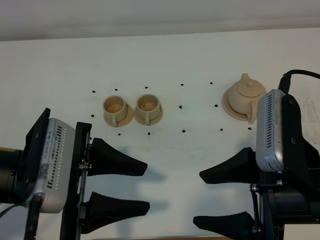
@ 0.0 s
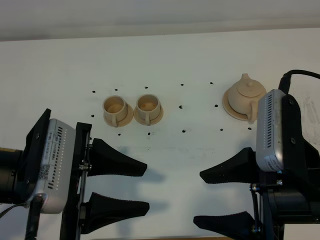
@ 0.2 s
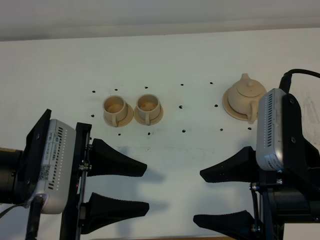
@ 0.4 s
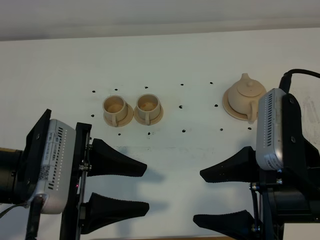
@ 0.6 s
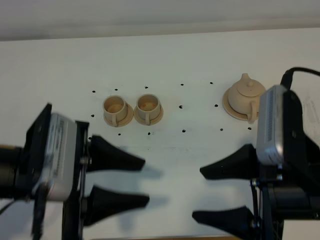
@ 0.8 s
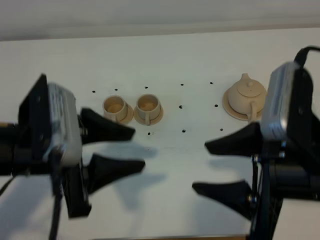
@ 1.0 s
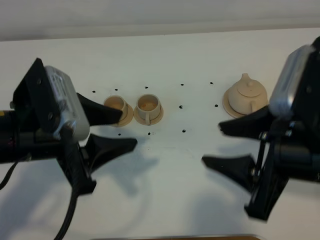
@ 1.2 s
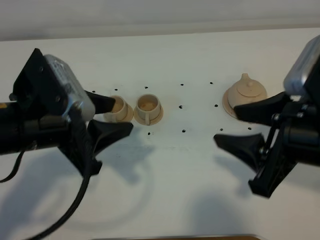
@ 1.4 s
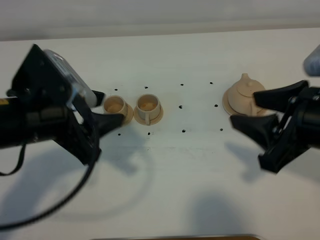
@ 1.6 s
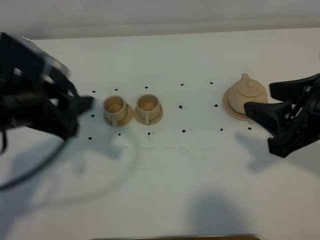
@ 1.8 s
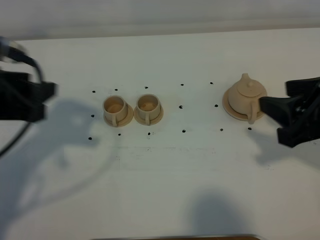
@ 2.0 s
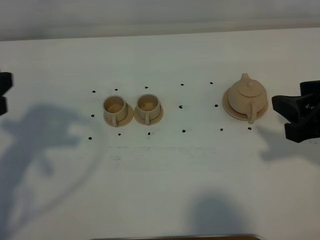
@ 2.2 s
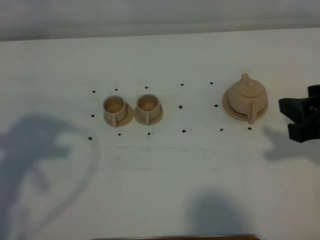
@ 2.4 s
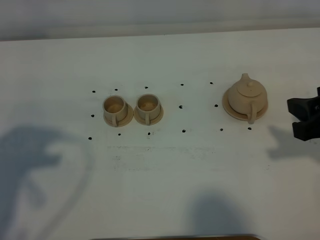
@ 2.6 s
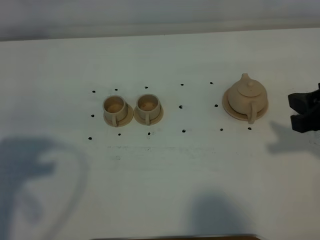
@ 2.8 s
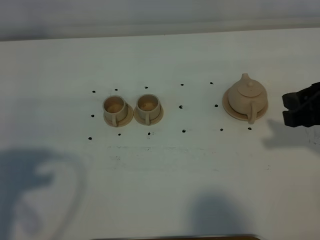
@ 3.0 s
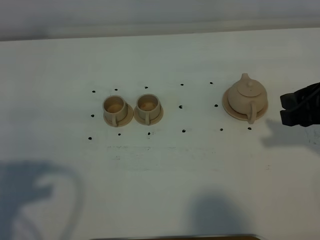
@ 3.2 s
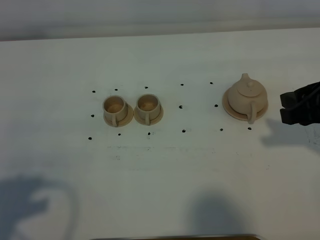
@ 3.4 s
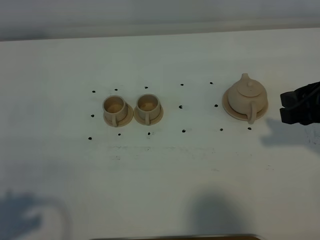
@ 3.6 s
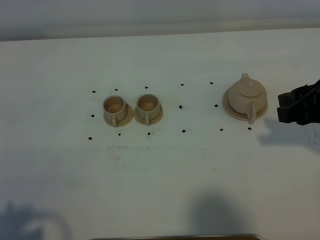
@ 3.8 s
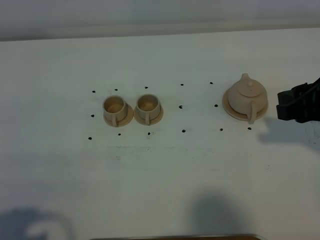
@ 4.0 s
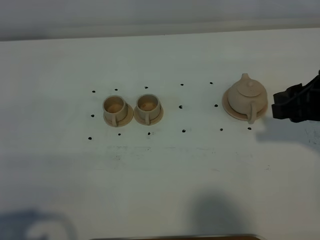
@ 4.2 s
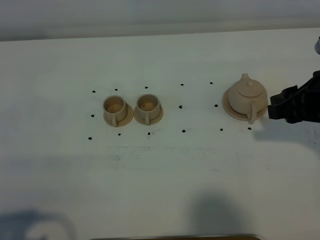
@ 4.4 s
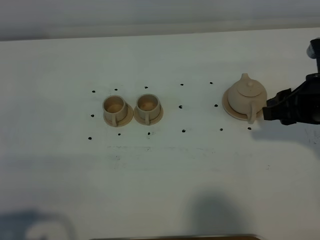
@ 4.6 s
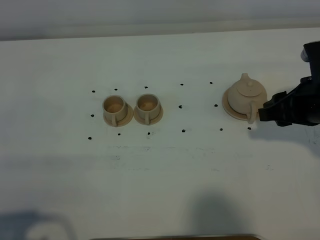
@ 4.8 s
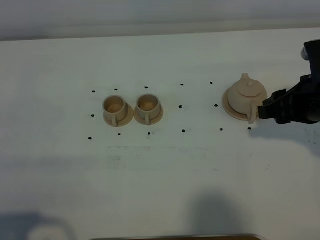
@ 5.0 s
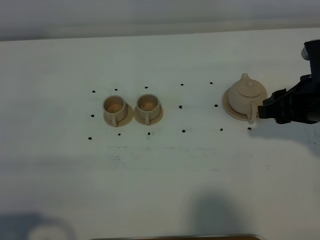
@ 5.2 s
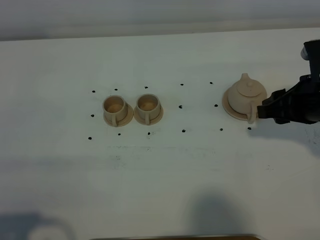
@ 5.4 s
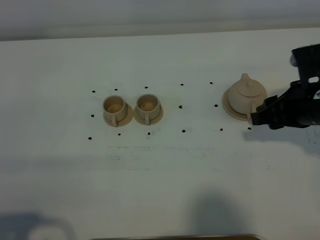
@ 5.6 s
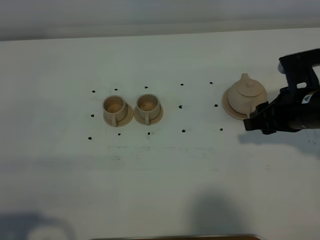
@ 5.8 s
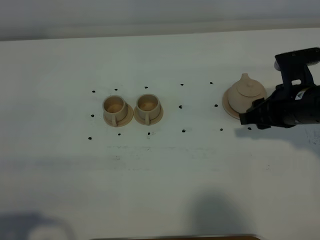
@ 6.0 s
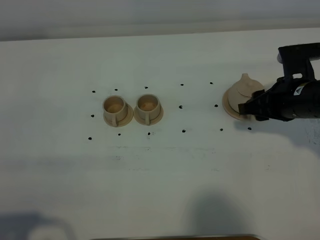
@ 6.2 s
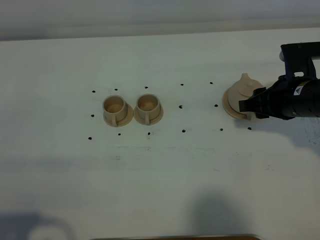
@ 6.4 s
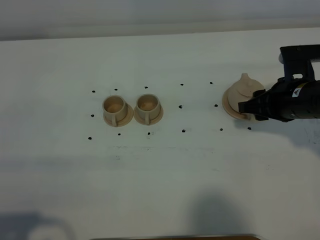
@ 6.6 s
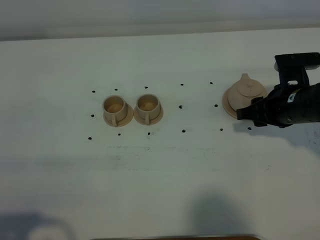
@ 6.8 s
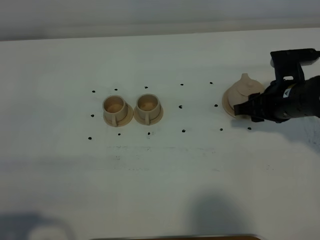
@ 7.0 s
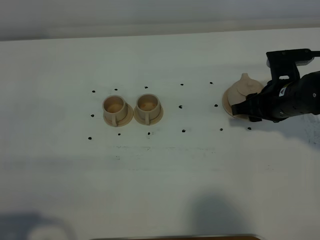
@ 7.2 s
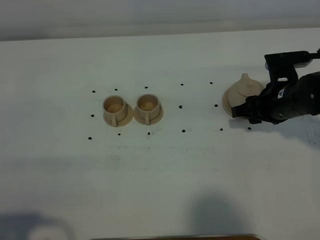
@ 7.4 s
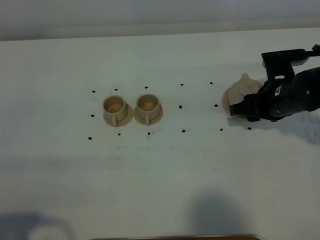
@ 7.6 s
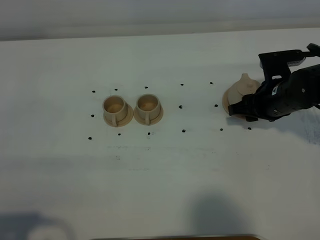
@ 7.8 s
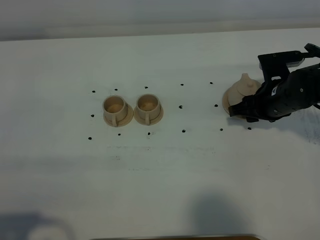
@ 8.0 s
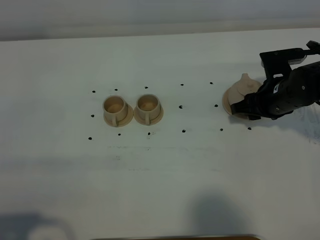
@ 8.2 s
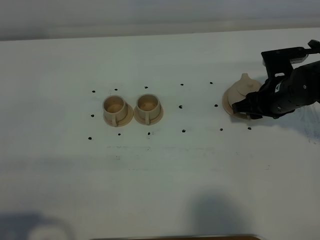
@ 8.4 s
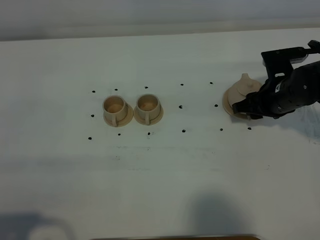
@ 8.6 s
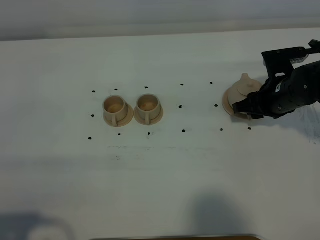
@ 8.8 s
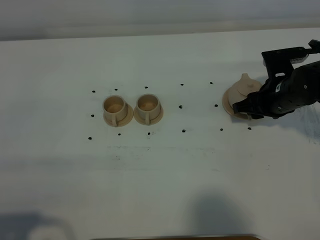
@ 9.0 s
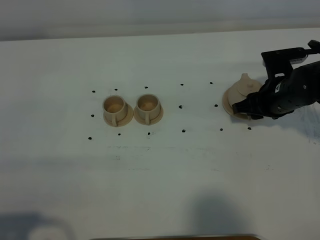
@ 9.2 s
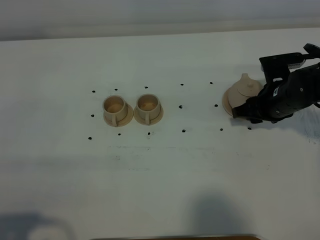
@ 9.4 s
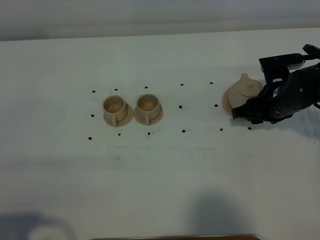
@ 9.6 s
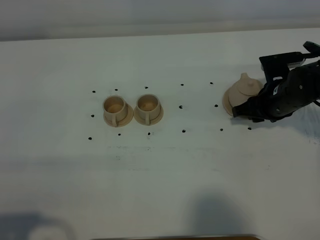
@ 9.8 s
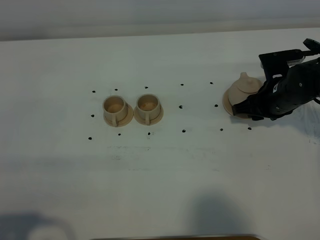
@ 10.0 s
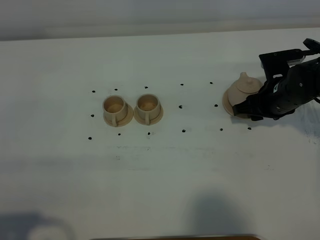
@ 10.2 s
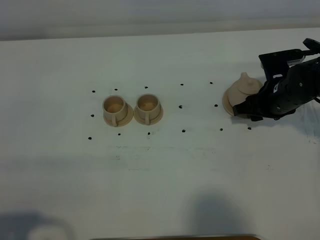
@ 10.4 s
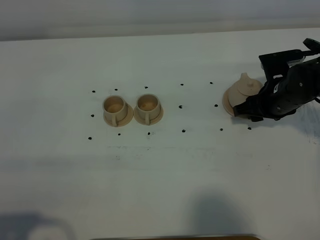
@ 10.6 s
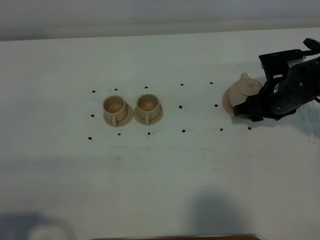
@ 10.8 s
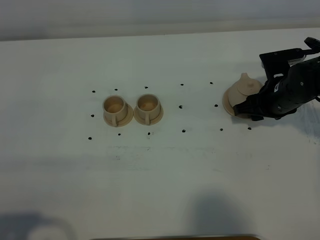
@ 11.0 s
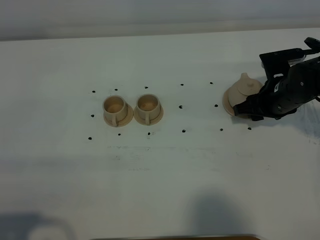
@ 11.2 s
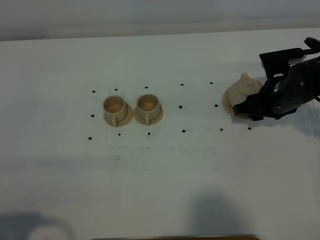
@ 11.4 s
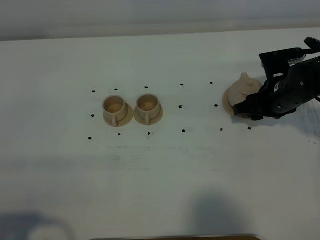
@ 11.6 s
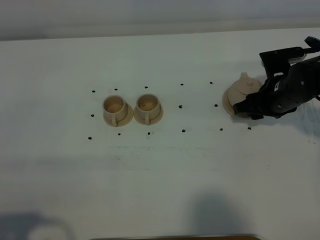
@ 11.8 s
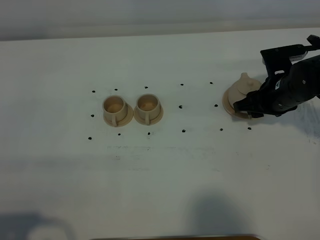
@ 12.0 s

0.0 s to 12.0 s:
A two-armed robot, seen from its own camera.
Task of the whole recording: grasp the brown teapot and pour the tea into the two brown teacups one by one, put the brown teapot back in its original place.
0.0 to 1.6 s: Both grippers move forward, roughly 5 cm.
1.6 to 3.0 s: The left gripper travels to the left and backward by approximately 15 cm, while the right gripper ends up some 5 cm from where it was.
3.0 to 4.4 s: The left gripper goes approximately 10 cm backward and downward.
4.4 to 6.0 s: The right gripper shifts some 5 cm downward.
6.0 to 7.6 s: The right gripper shifts by approximately 5 cm.
7.6 to 9.0 s: The grippers stay close to where they were, moving slightly.
9.0 to 12.0 s: Neither gripper changes place.

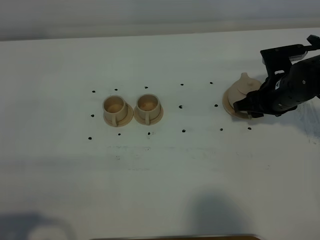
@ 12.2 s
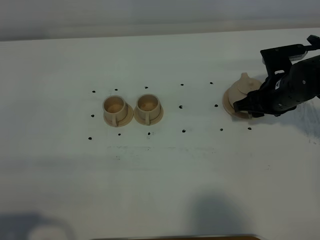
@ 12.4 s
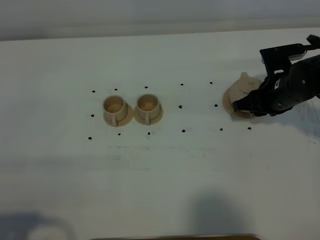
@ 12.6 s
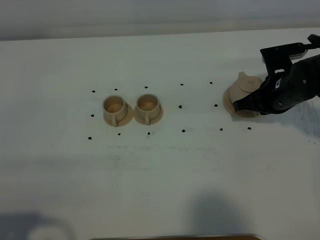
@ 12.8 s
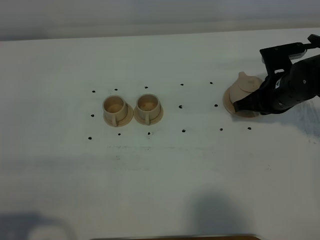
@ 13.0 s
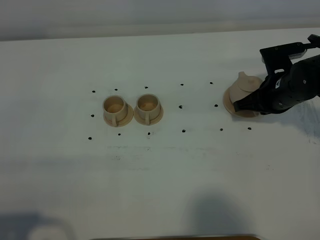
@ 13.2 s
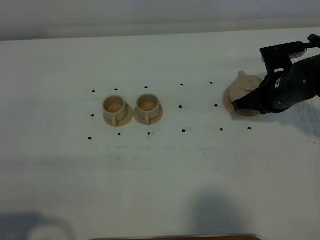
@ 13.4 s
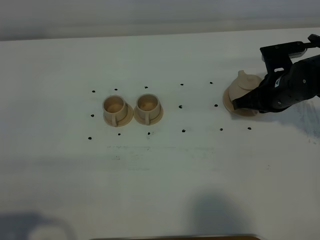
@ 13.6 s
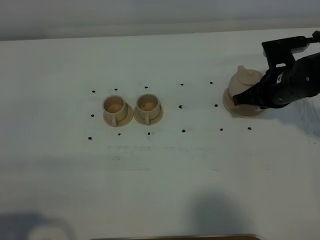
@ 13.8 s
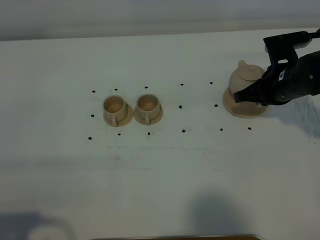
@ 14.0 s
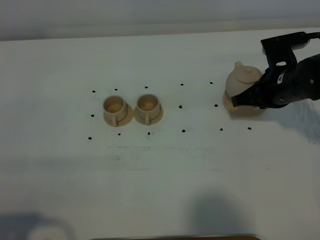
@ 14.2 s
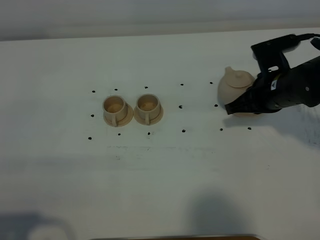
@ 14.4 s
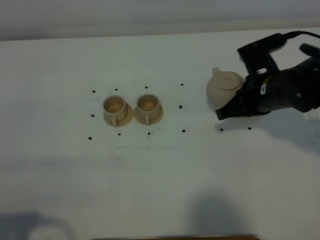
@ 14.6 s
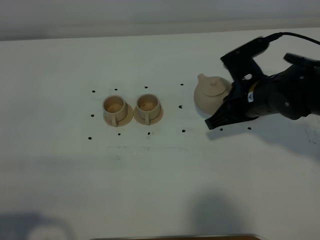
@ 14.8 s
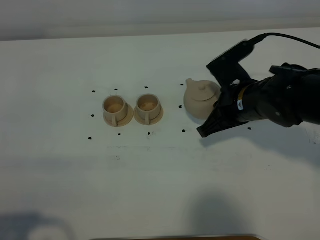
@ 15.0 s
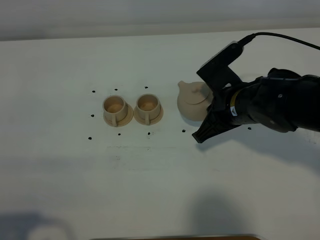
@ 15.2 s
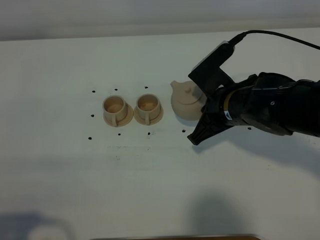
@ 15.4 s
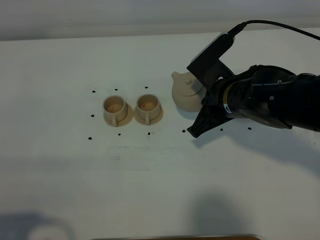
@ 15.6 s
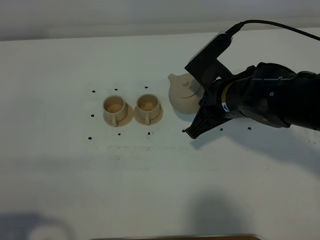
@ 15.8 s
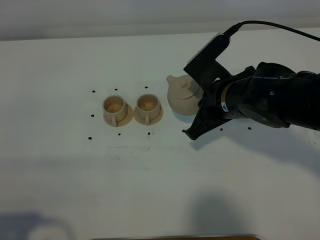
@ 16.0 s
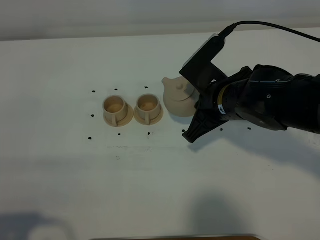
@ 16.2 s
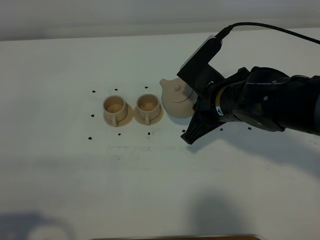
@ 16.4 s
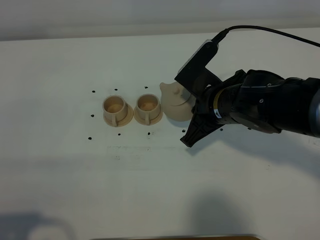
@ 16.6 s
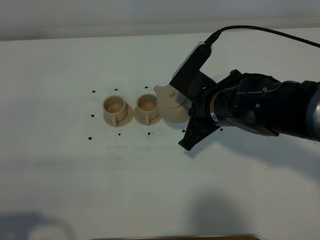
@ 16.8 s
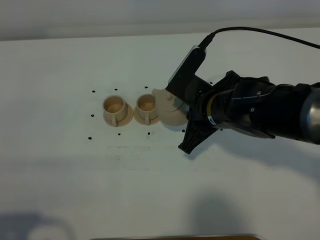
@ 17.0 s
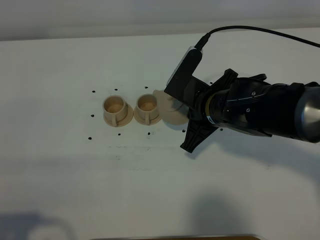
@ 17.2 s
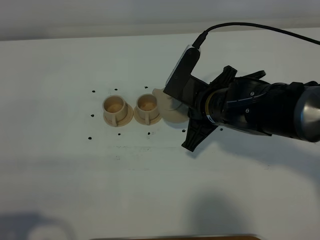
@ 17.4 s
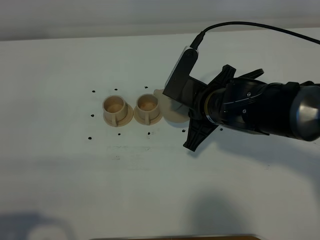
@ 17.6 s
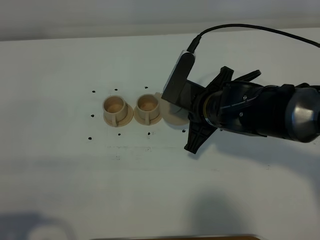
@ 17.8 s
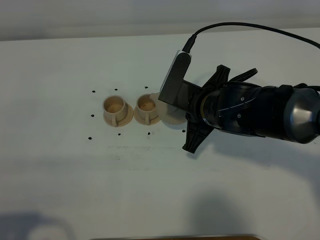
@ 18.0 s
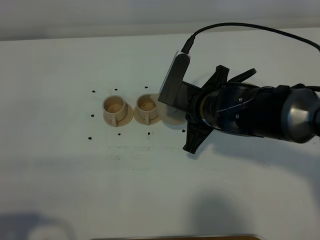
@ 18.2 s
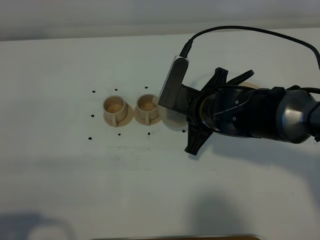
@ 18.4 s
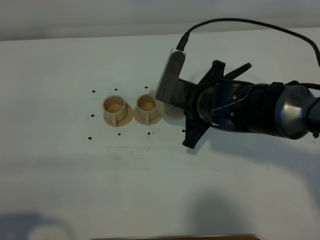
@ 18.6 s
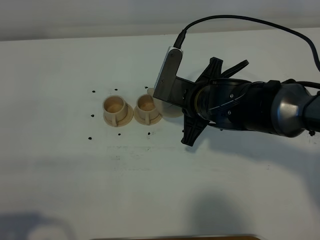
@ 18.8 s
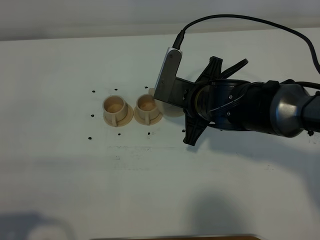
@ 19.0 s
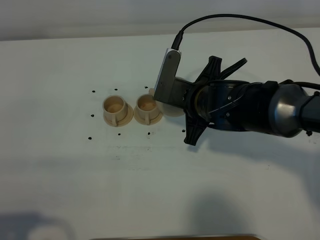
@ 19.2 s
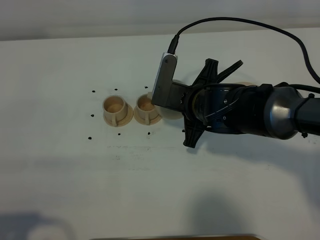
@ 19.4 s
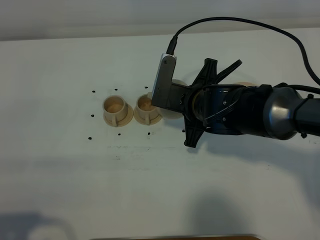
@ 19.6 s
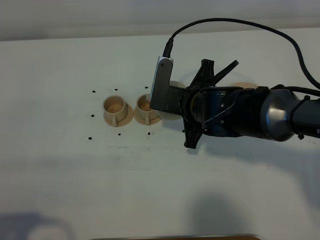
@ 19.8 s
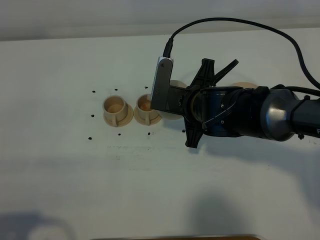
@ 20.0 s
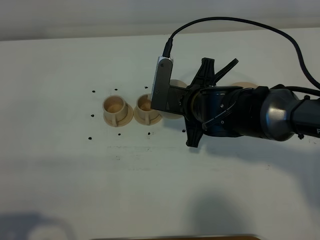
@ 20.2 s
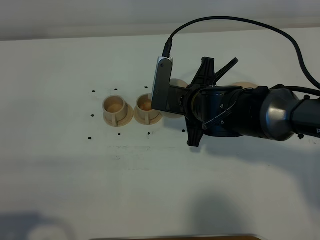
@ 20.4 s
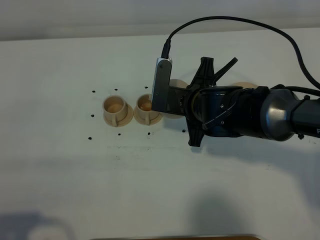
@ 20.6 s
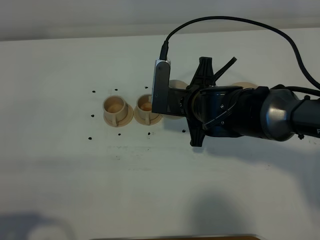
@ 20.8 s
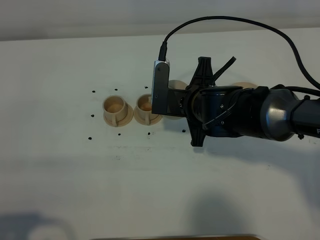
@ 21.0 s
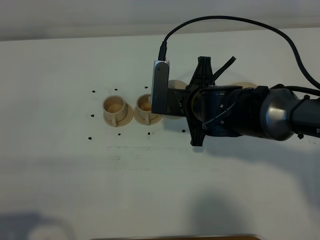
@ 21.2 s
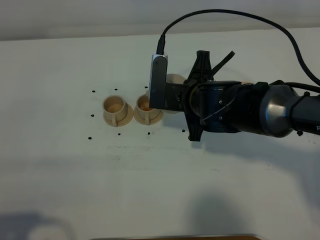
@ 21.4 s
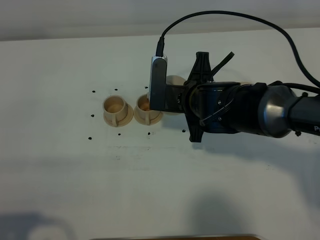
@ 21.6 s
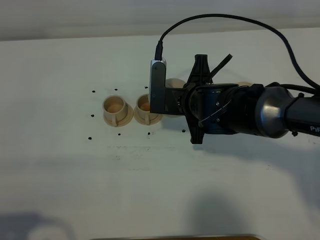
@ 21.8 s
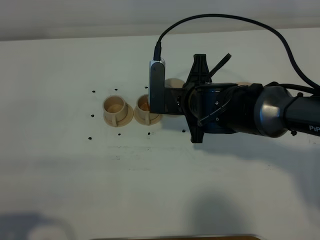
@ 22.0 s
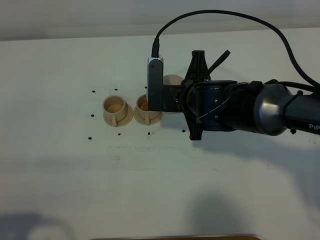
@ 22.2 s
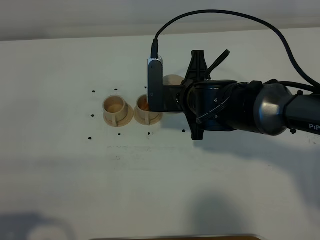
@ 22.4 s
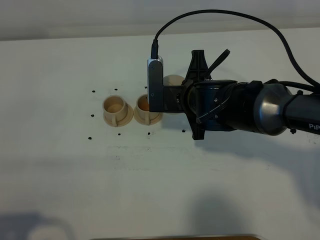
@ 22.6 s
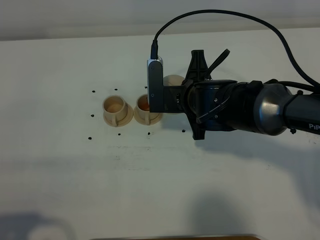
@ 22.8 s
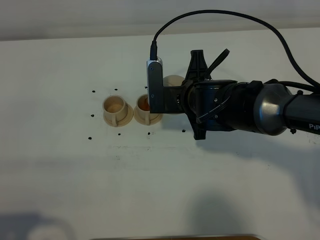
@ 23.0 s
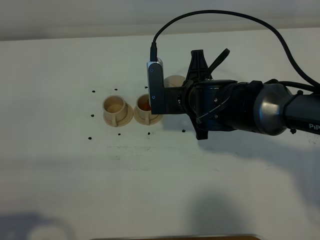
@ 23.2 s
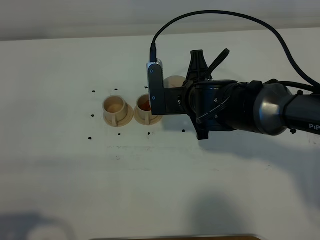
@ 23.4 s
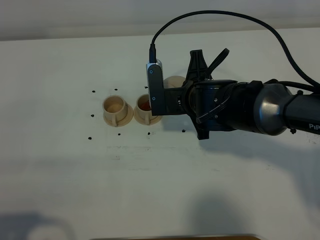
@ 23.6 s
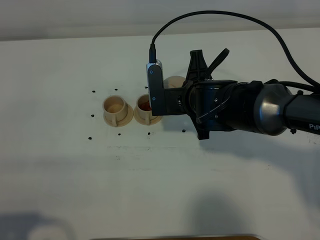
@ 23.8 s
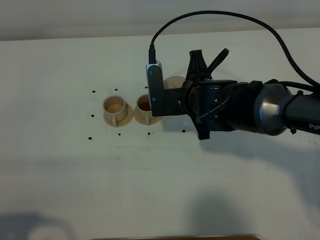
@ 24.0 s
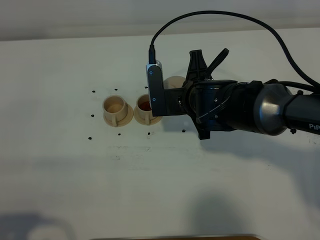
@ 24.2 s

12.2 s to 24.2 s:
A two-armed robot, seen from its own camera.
Task of the whole recording: grasp the brown teapot and pour the tea into the two brown teacups one by one, put the brown teapot back in its original place.
12.2 to 13.8 s: The right gripper closes its fingers.
13.8 to 15.2 s: The right gripper moves to the left and backward, roughly 10 cm.
15.2 to 16.6 s: The grippers move only a little.
16.6 to 18.2 s: The grippers stay close to where they were, moving slightly.
18.2 to 21.2 s: The grippers make only small movements.
21.2 to 24.2 s: The grippers make only small movements.
